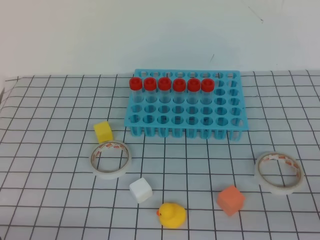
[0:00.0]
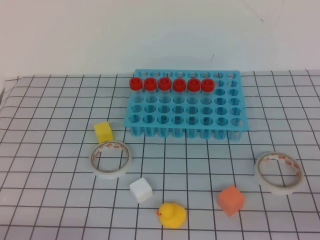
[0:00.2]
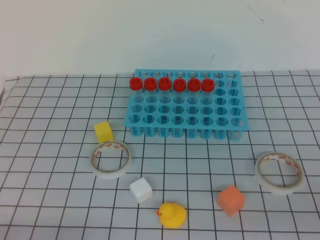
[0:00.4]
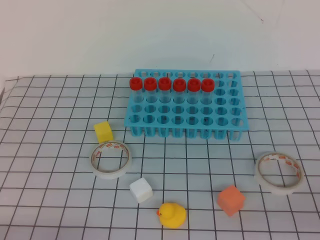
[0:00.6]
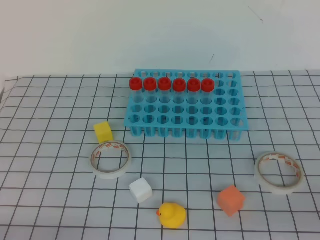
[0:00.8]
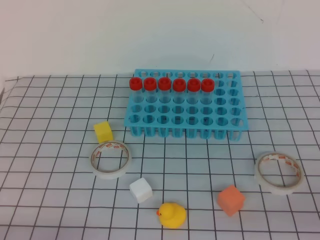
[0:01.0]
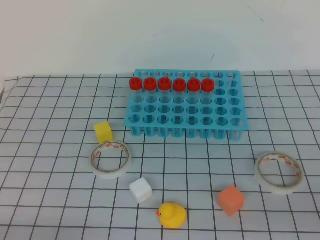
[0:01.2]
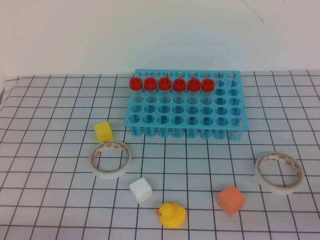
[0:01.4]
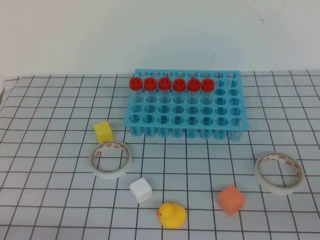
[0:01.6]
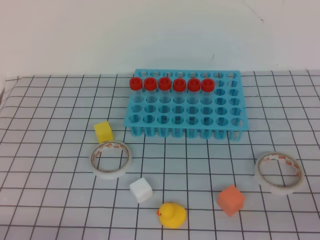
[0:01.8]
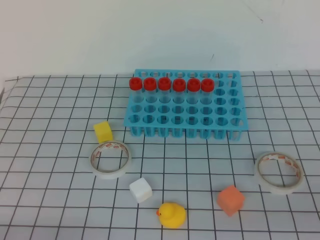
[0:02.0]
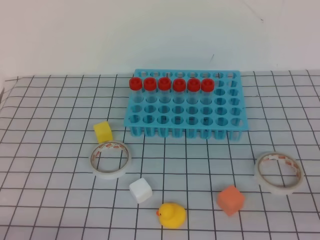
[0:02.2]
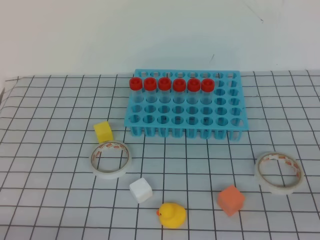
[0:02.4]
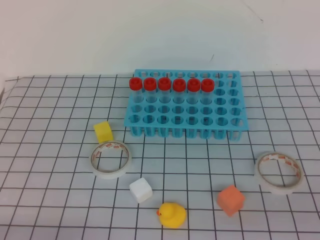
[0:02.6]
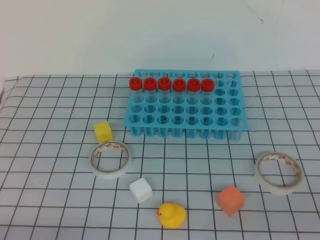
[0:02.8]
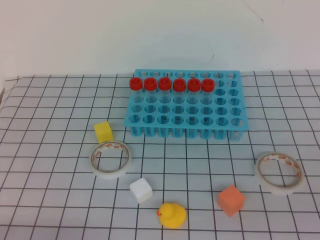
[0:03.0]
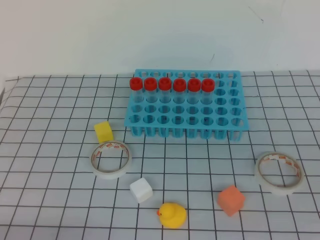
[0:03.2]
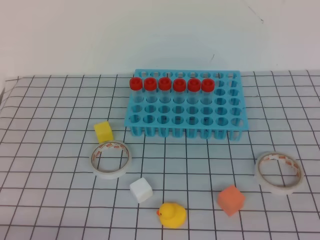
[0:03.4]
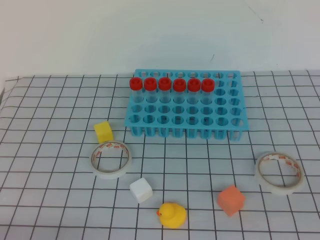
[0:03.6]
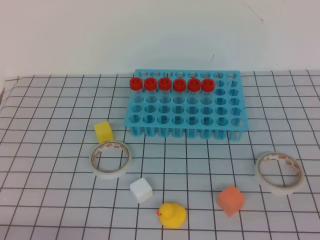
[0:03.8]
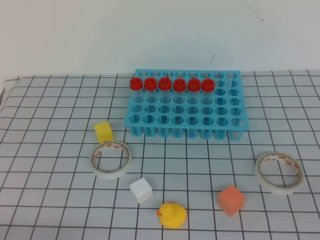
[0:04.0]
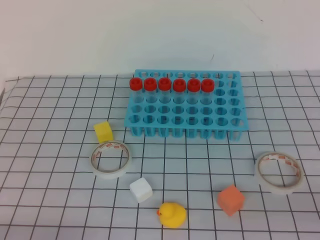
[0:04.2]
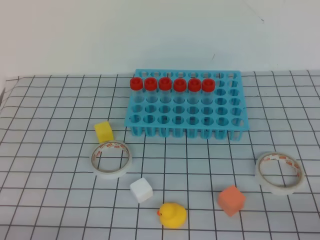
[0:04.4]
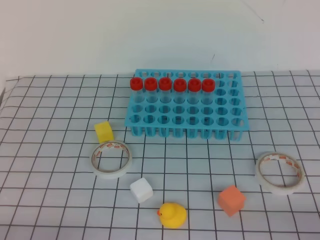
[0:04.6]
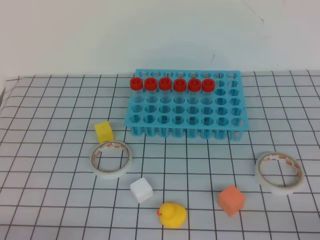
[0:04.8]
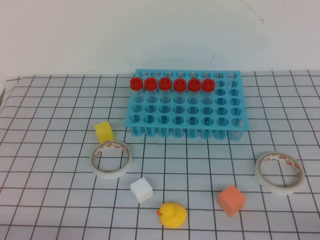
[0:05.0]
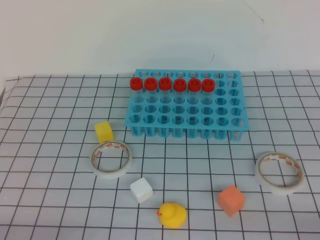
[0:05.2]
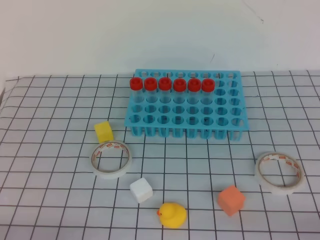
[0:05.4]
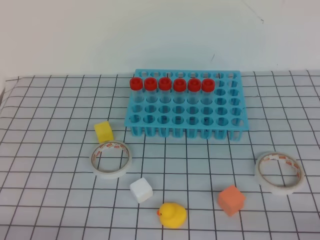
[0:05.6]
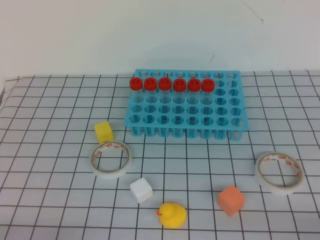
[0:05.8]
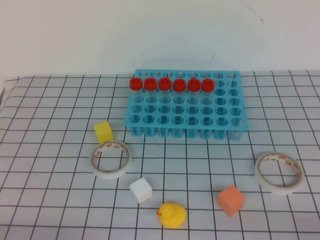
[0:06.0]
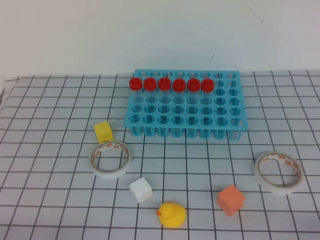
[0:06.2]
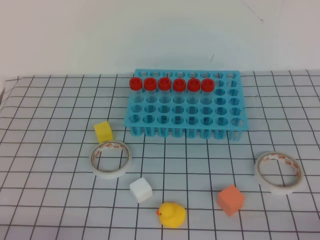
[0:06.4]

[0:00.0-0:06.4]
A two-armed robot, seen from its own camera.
0:04.8 to 0:06.4: Neither gripper changes place.
